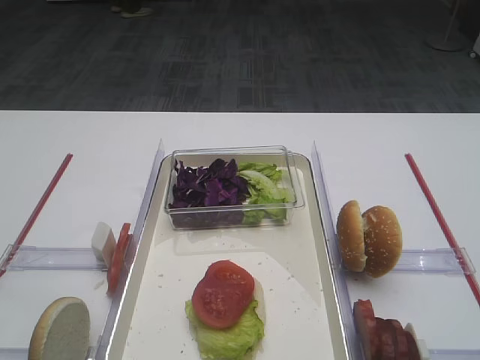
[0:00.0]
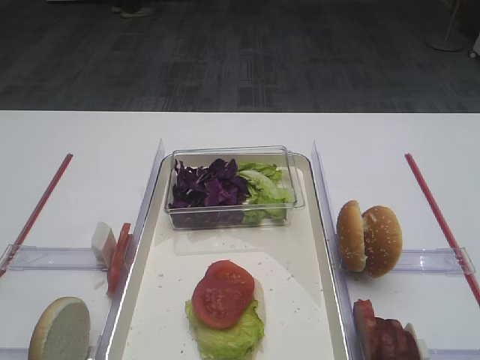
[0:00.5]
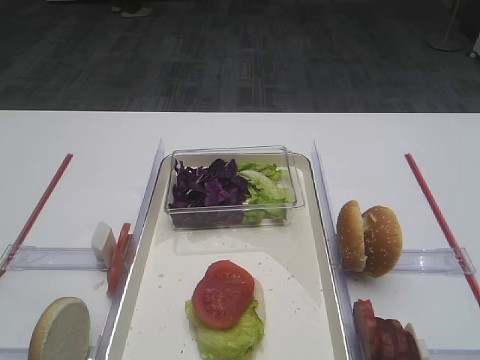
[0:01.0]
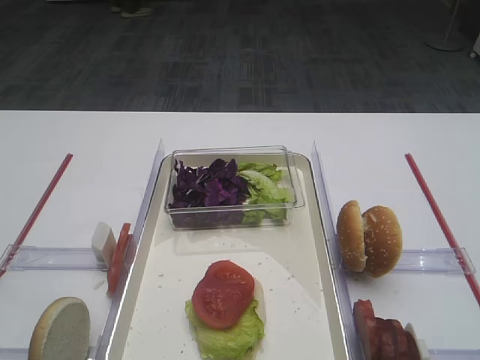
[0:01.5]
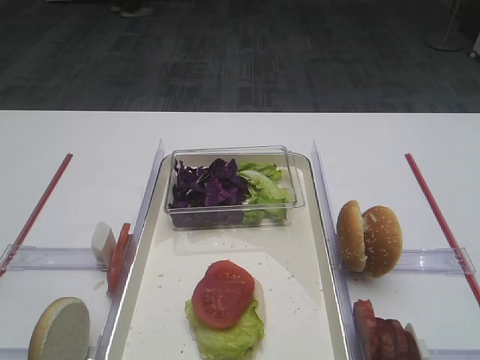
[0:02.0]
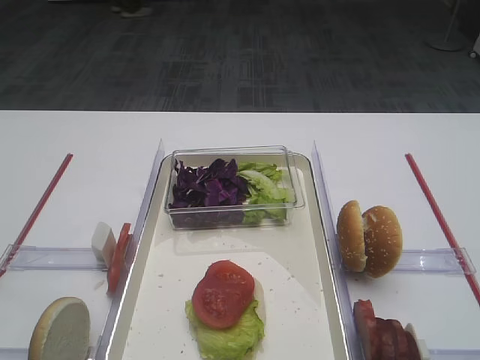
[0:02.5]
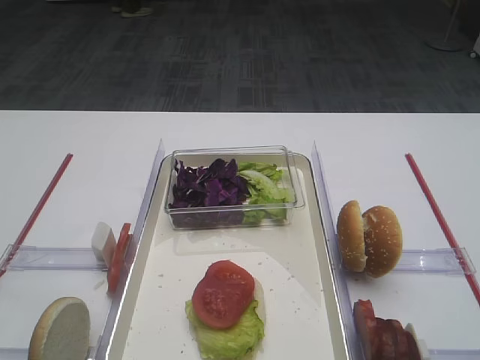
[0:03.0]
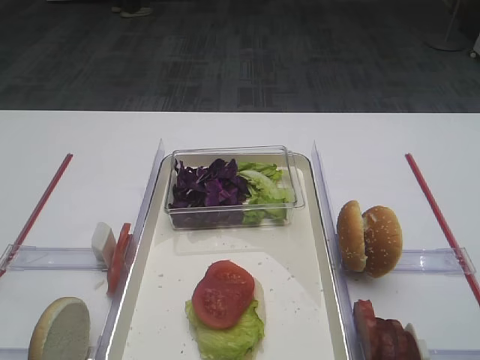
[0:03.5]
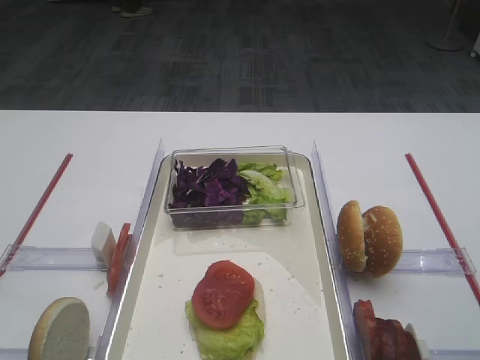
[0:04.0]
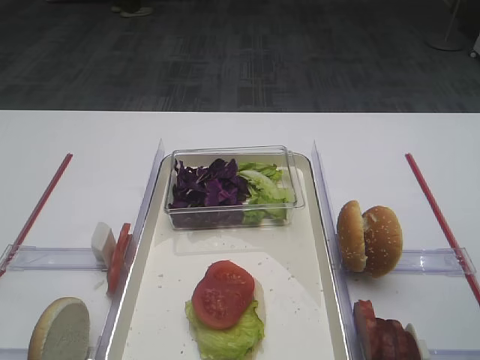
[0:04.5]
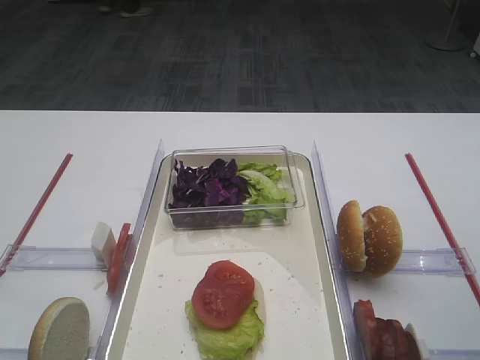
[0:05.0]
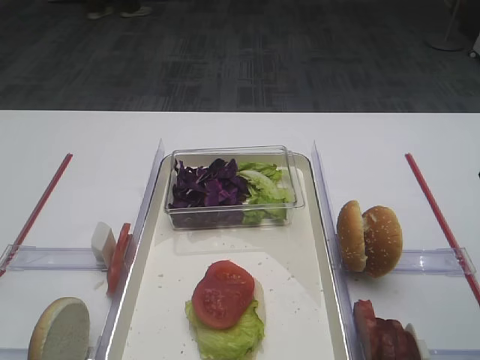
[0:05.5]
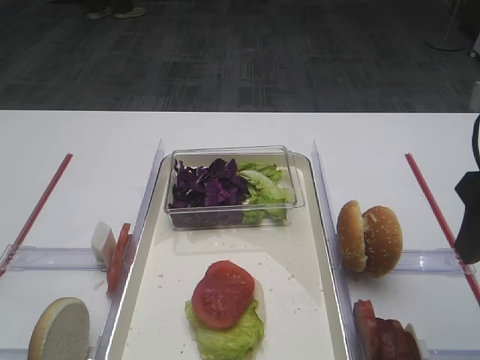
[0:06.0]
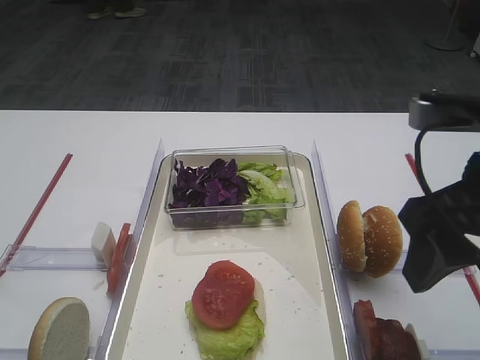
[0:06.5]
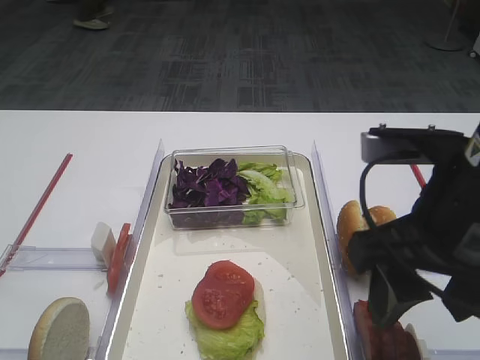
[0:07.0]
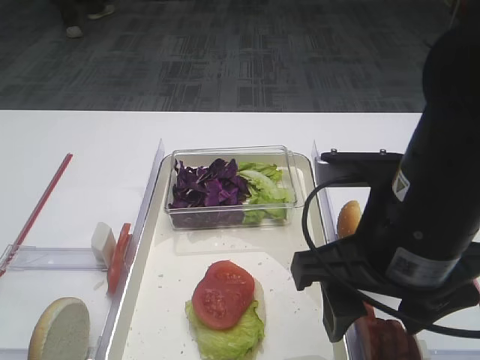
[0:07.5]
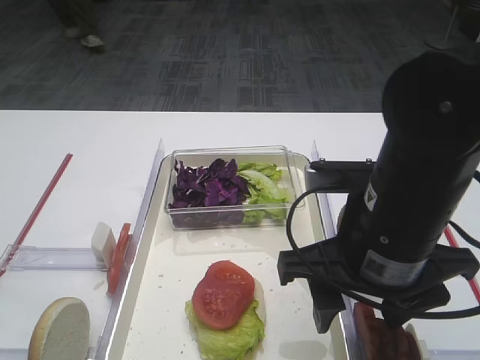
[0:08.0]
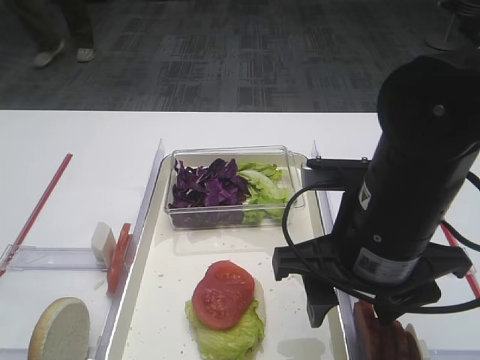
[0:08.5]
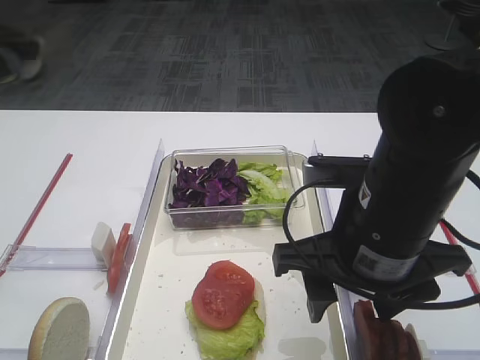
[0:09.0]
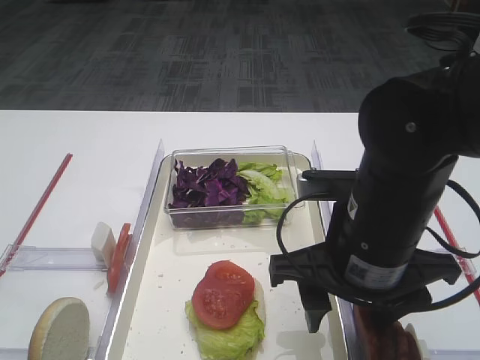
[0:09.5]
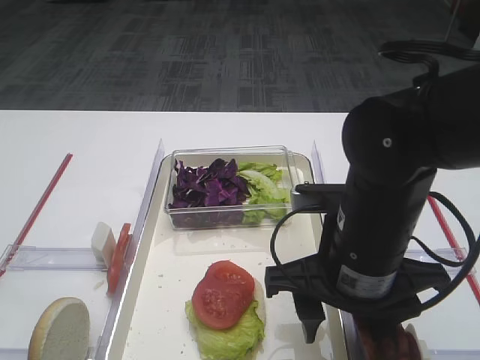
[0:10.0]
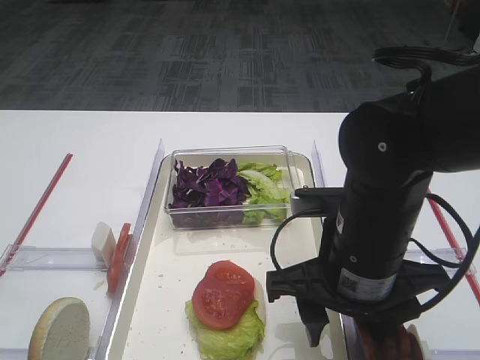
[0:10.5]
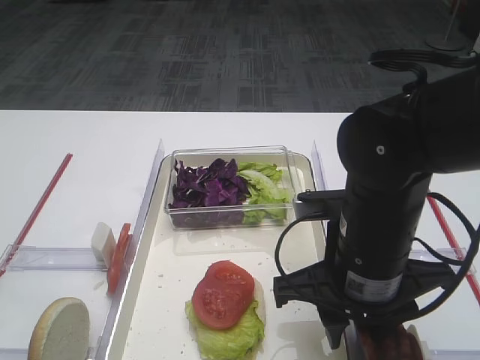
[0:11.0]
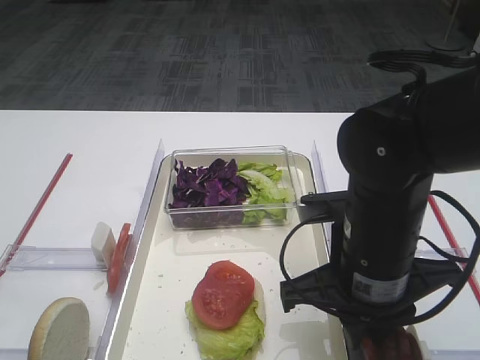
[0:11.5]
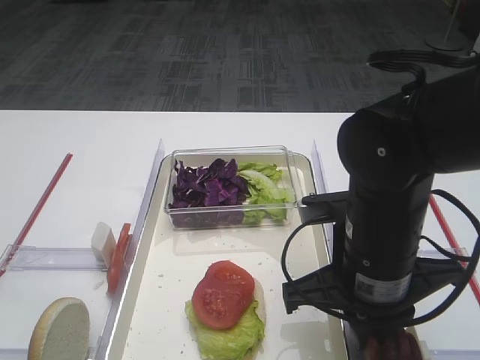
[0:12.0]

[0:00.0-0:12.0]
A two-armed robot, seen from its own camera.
4.0 to 6.0 s: The right gripper shifts by approximately 5 cm.
6.0 to 8.0 s: The right gripper goes some 15 cm to the left and downward.
8.0 to 10.0 s: The grippers make only small movements.
10.0 to 12.0 s: The right gripper closes its fingers.

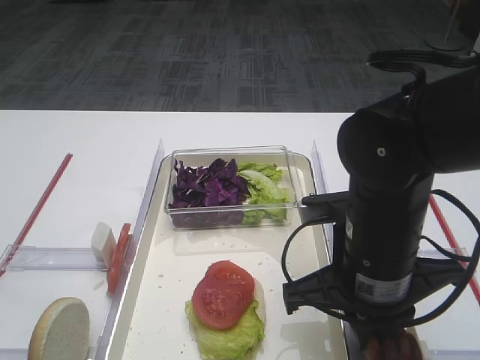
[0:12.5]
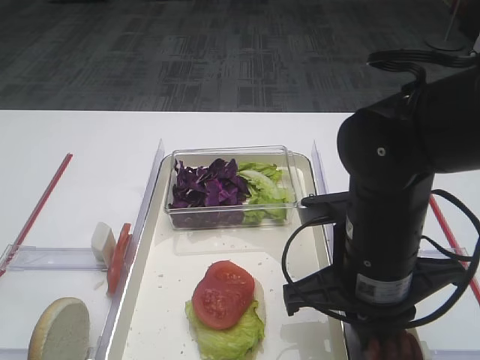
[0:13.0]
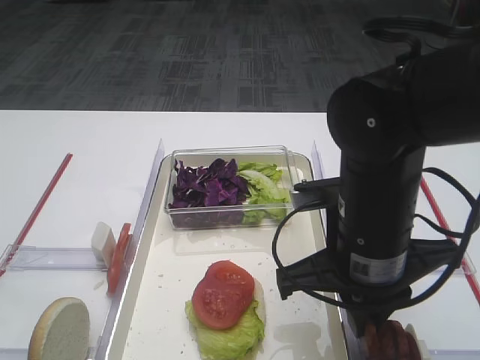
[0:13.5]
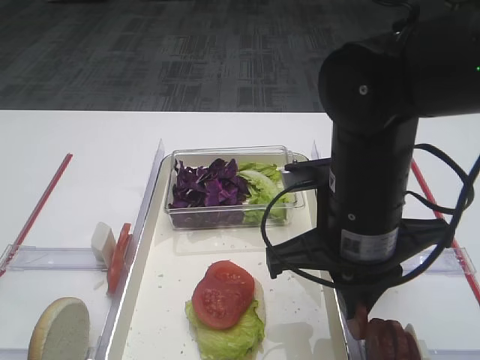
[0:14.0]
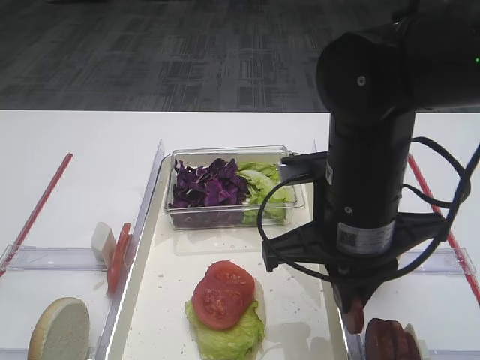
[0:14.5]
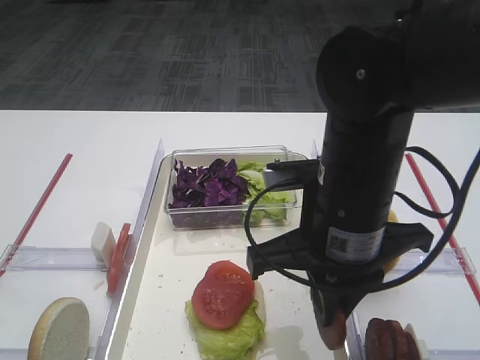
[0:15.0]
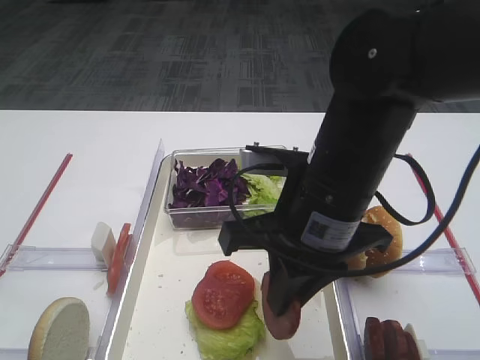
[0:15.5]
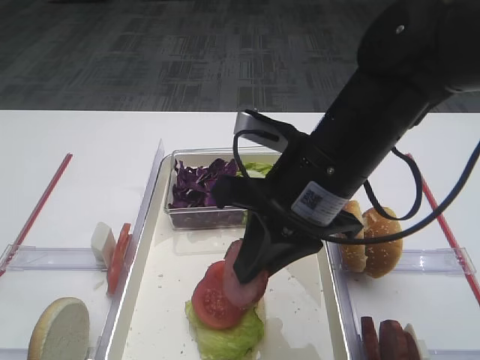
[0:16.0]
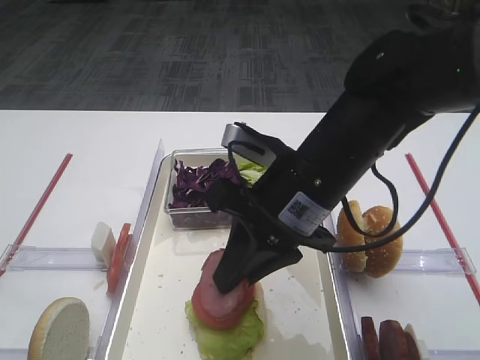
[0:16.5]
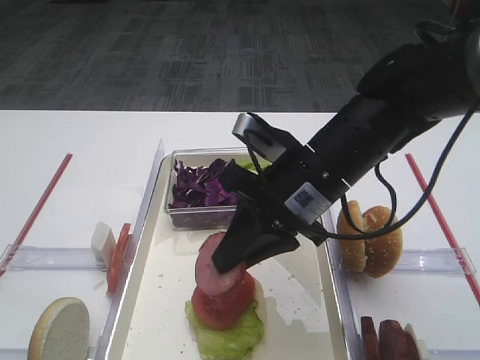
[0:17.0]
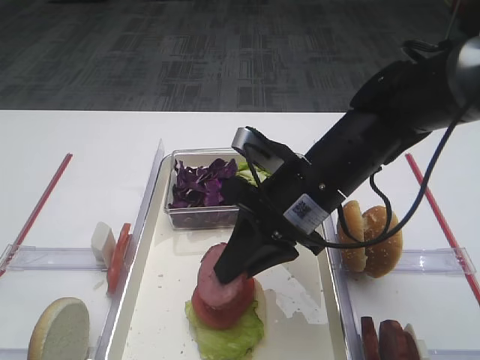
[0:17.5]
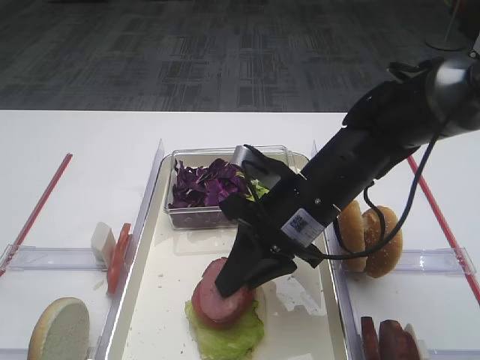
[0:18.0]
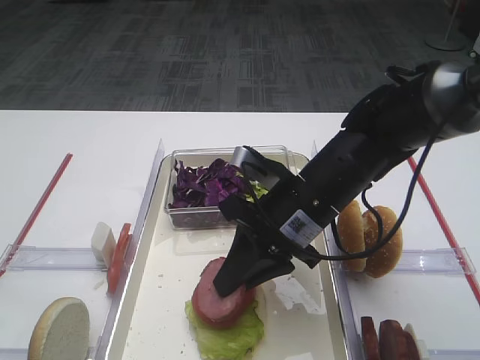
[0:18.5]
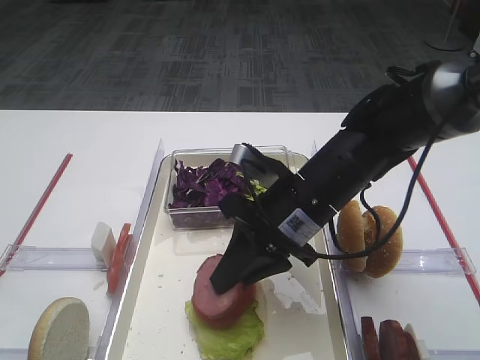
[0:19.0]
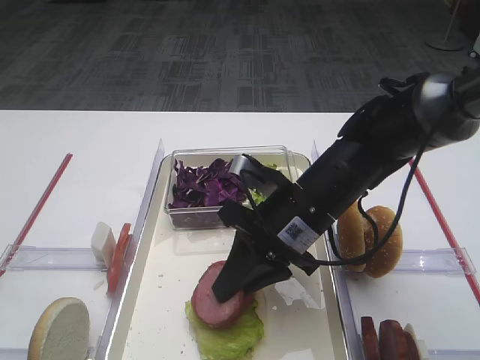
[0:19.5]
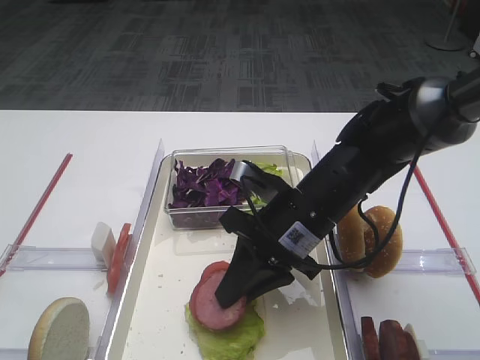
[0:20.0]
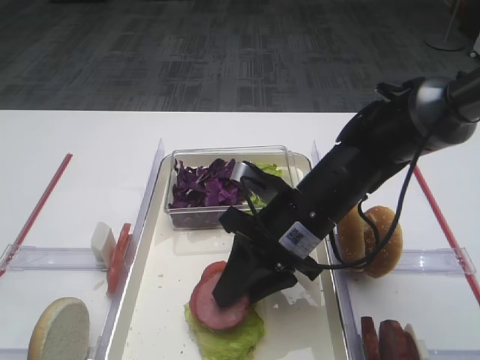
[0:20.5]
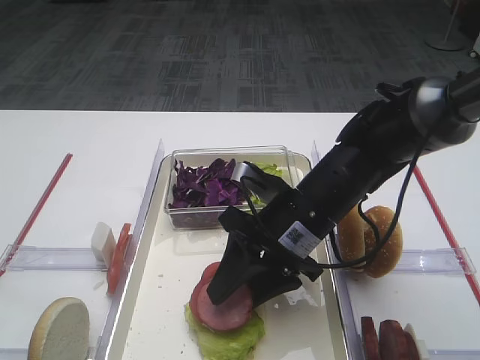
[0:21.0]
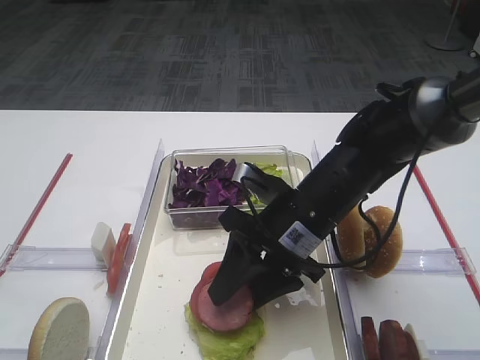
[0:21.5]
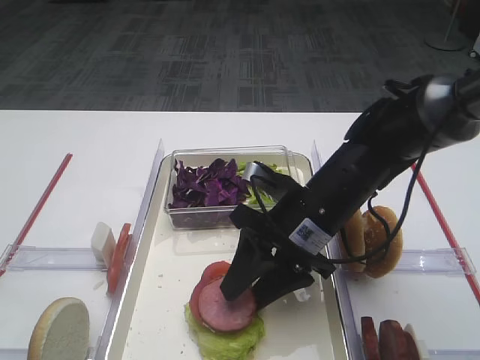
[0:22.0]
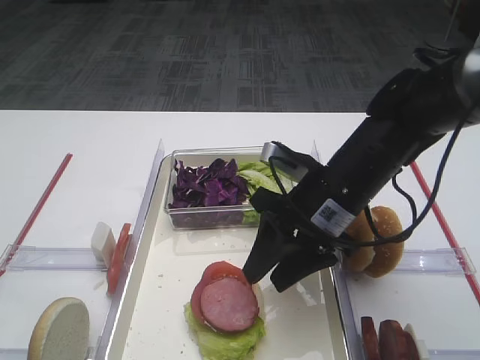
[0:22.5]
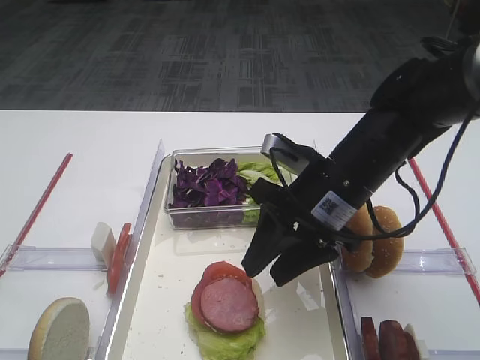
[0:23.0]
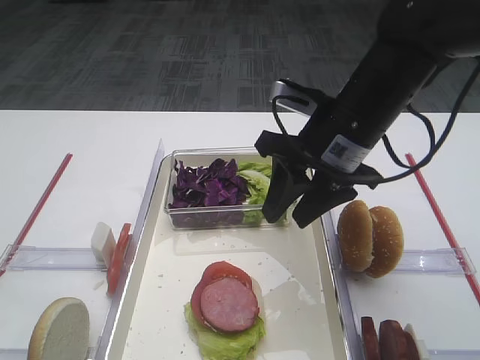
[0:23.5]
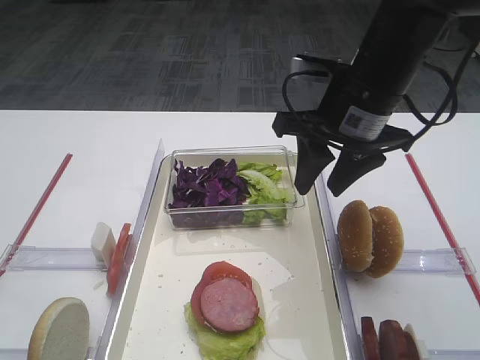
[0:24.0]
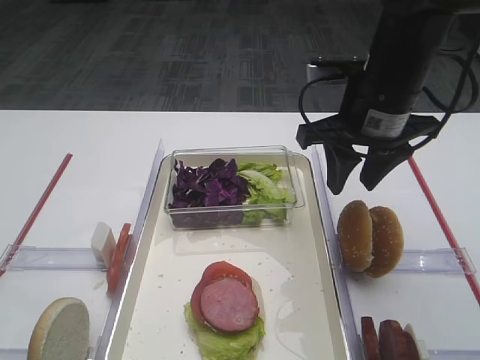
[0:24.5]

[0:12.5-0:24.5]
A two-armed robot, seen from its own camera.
Step, 15.0 to 22.5 s: Place the cutlet on the tomato slice with the right gripper.
12.5 to 14.5 s: The grippers stay close to where they were, moving slightly.
16.5 to 18.5 s: The right gripper moves downward, about 5 cm.
18.5 to 22.5 s: The grippers move only a little.
22.5 to 24.5 s: The right gripper heads upward, covering about 10 cm.

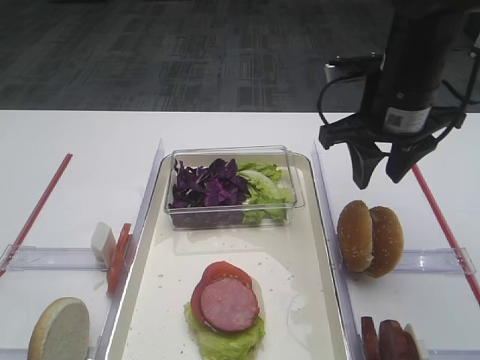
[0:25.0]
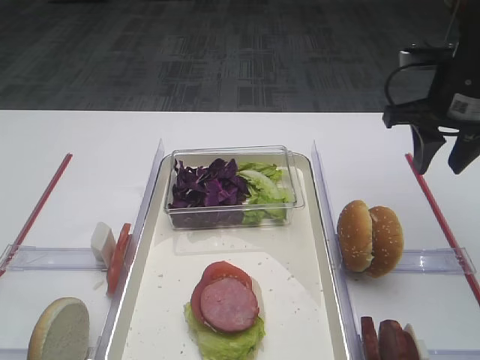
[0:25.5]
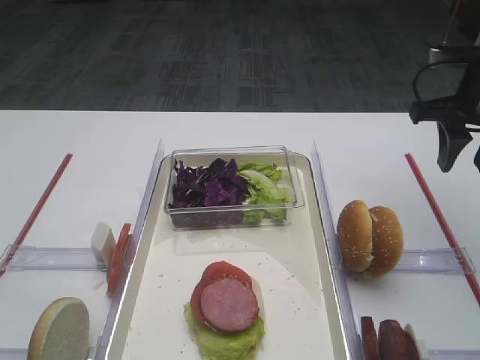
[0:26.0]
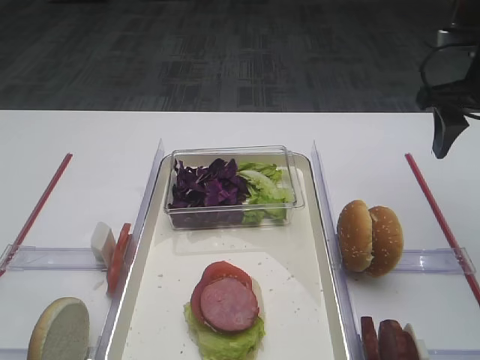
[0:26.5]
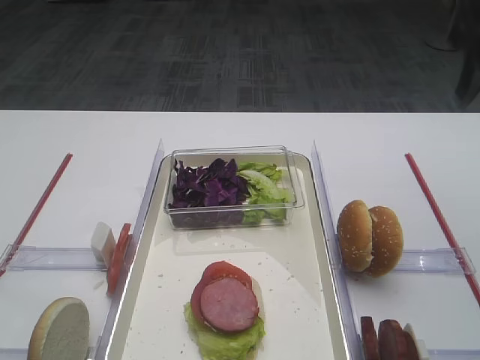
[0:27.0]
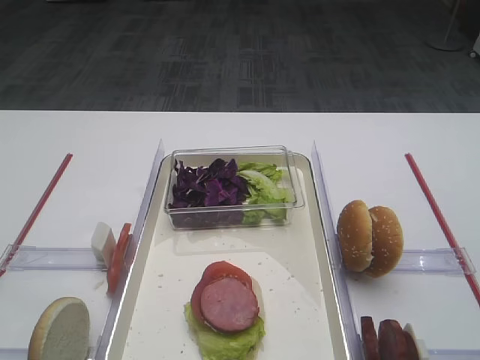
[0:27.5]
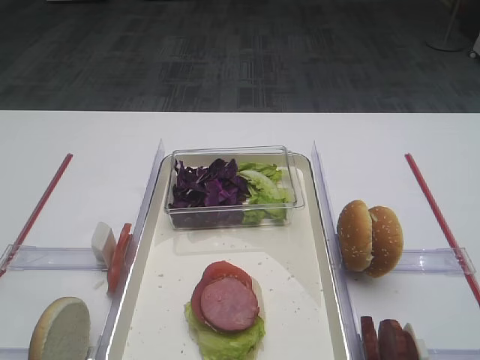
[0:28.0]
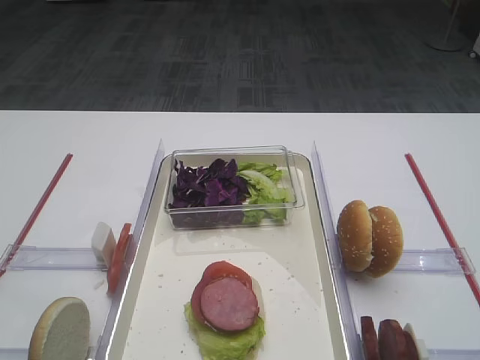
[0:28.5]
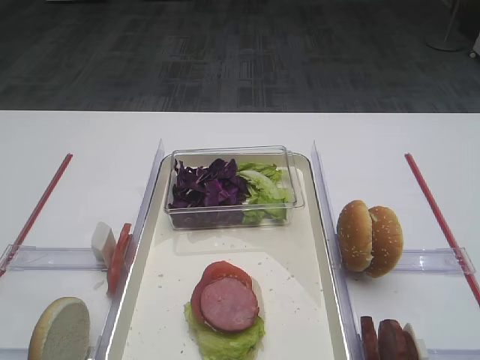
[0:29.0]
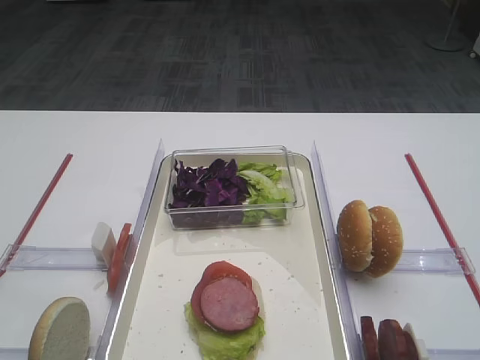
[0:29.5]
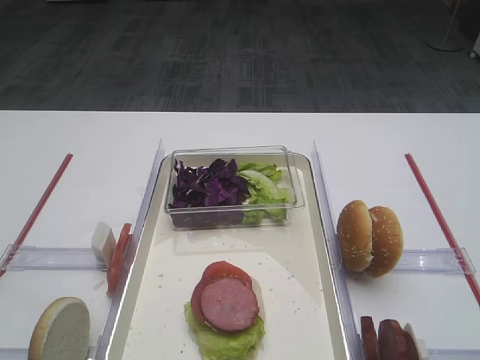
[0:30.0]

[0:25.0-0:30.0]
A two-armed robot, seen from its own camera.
25.0 to 27.5 s: The right gripper goes some 25 cm upward, backward and to the right, and opens its fingers.
